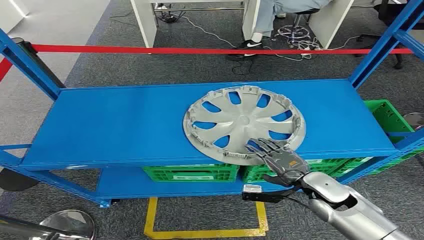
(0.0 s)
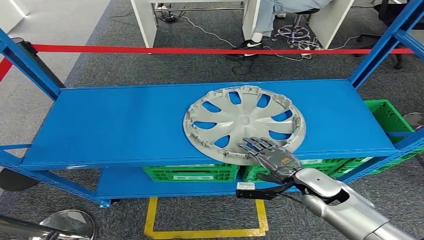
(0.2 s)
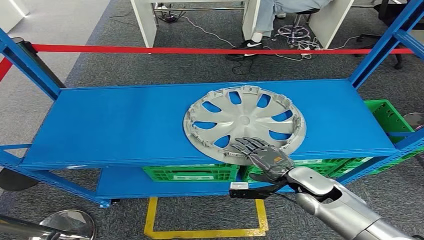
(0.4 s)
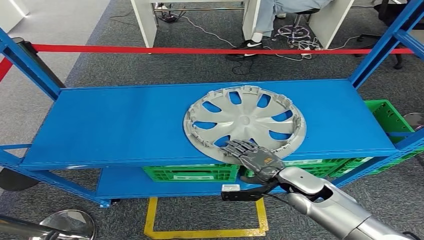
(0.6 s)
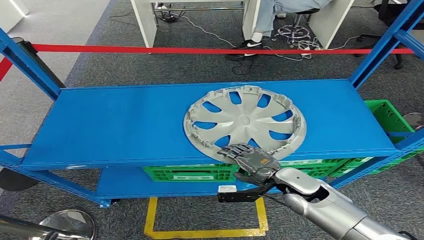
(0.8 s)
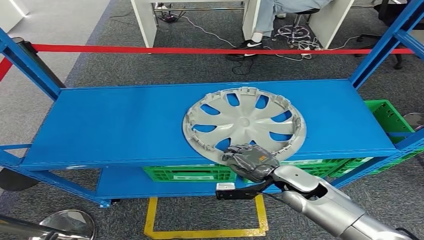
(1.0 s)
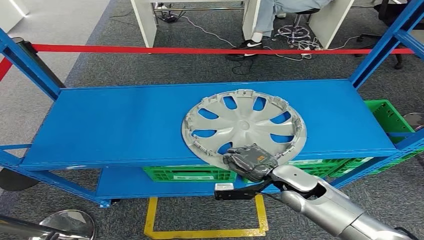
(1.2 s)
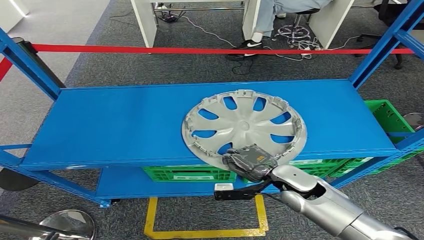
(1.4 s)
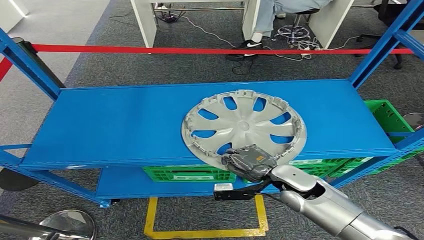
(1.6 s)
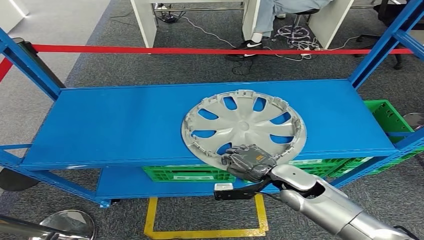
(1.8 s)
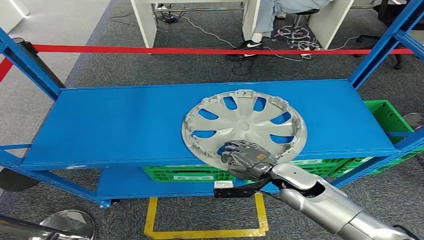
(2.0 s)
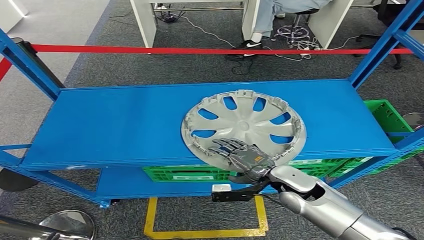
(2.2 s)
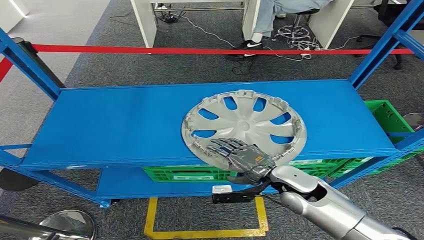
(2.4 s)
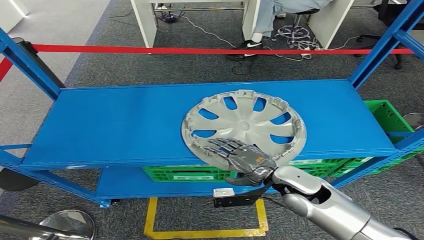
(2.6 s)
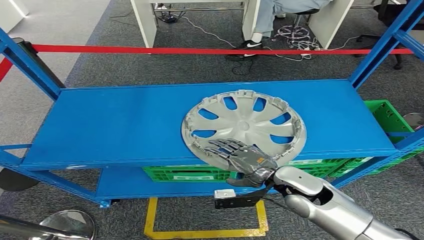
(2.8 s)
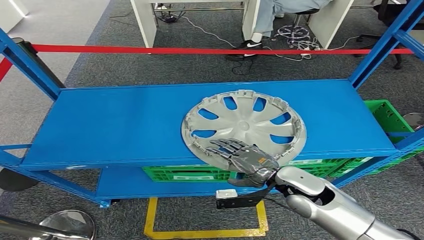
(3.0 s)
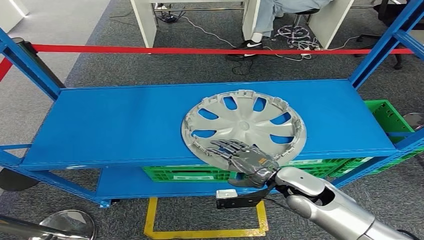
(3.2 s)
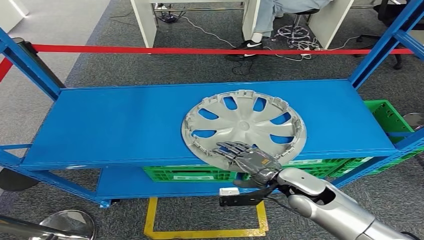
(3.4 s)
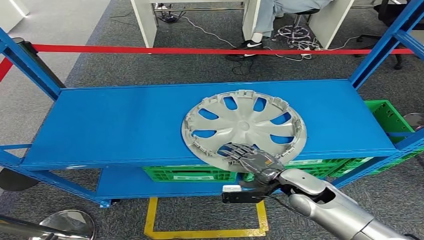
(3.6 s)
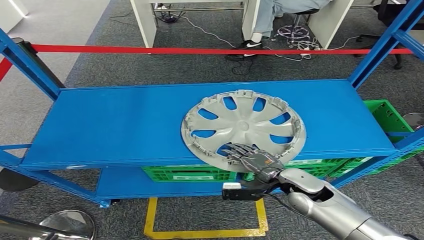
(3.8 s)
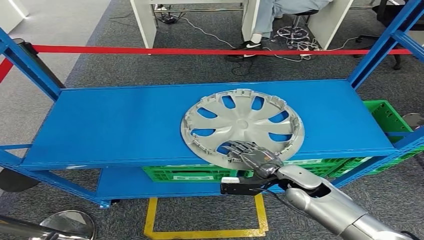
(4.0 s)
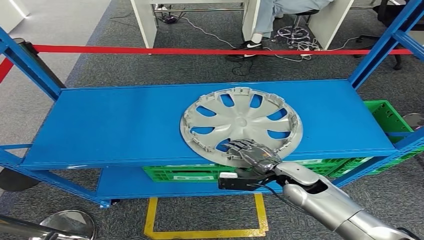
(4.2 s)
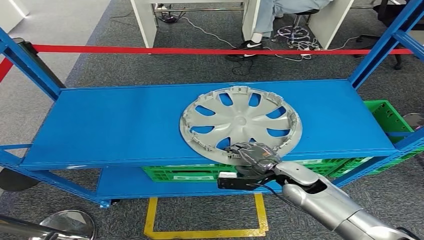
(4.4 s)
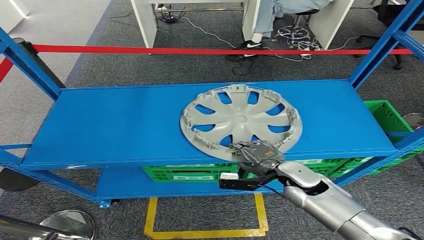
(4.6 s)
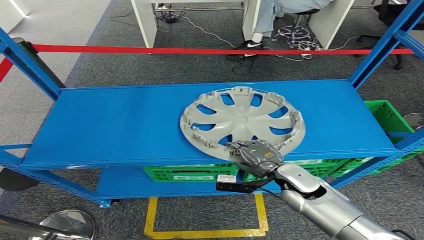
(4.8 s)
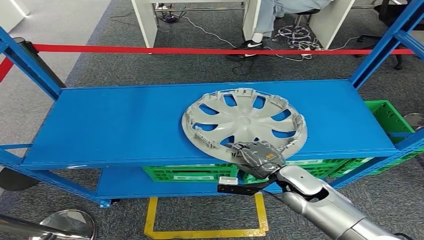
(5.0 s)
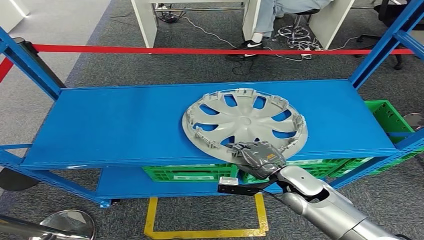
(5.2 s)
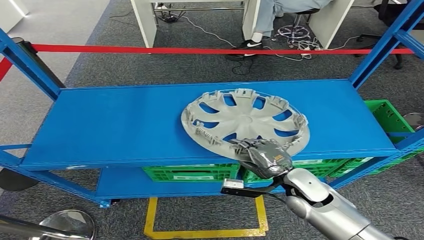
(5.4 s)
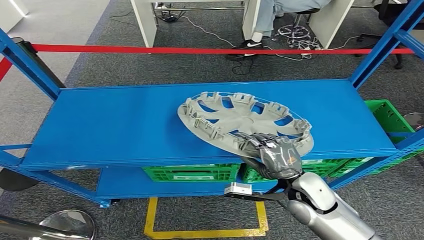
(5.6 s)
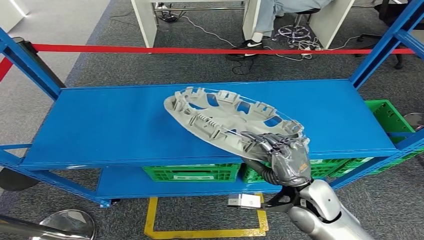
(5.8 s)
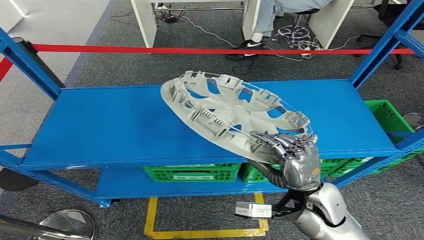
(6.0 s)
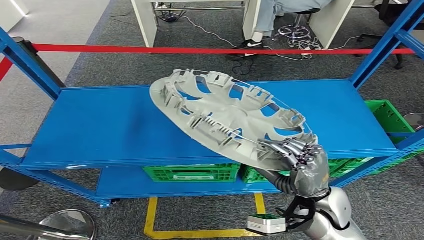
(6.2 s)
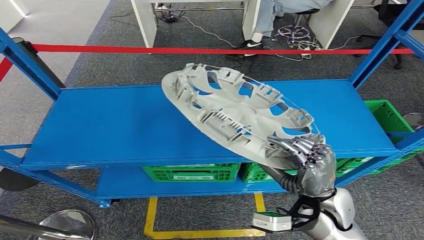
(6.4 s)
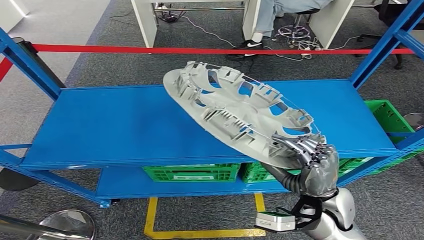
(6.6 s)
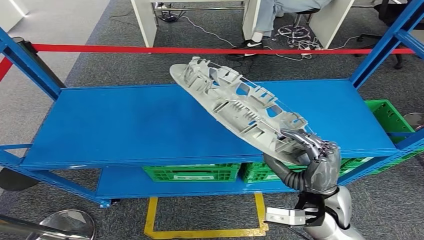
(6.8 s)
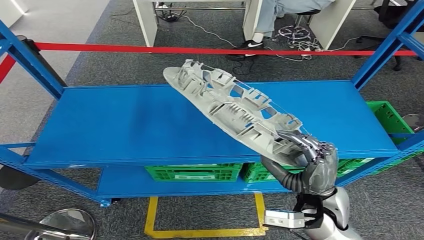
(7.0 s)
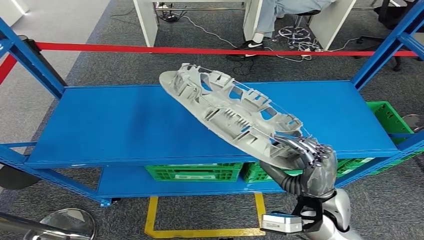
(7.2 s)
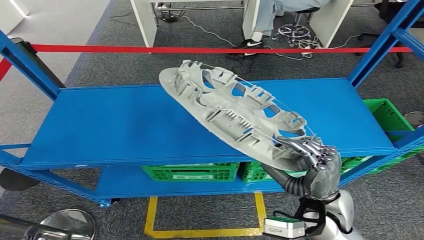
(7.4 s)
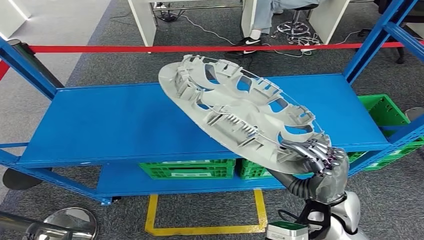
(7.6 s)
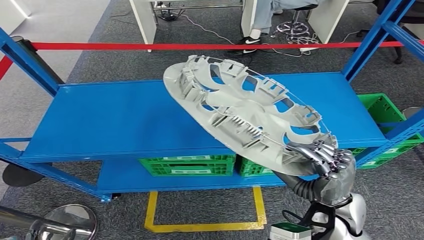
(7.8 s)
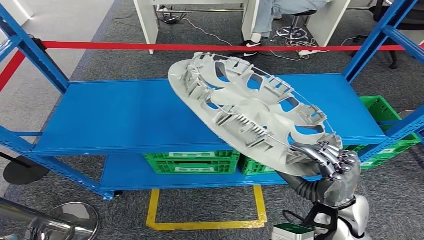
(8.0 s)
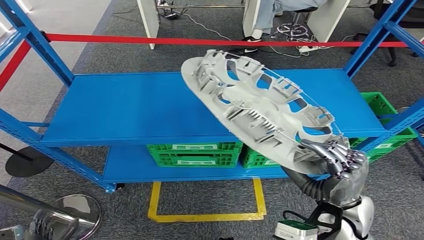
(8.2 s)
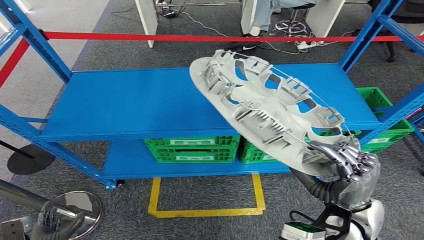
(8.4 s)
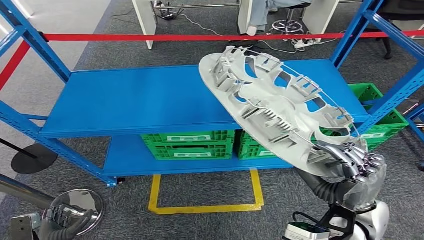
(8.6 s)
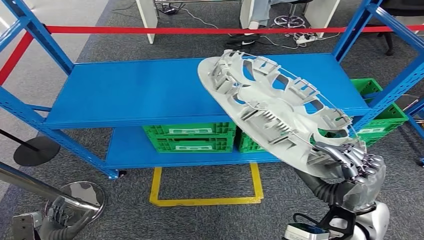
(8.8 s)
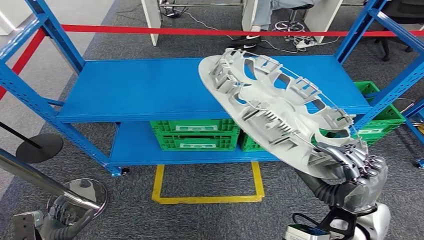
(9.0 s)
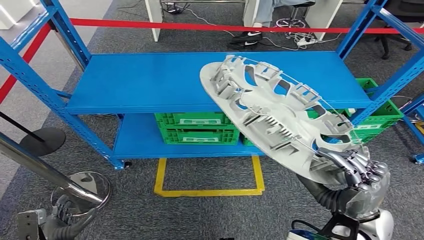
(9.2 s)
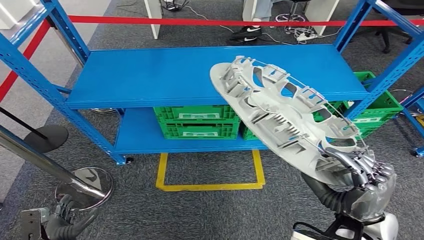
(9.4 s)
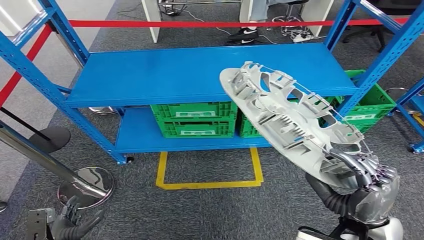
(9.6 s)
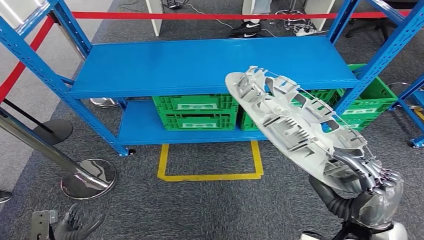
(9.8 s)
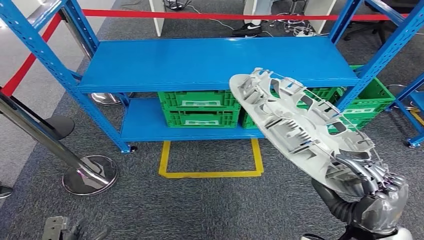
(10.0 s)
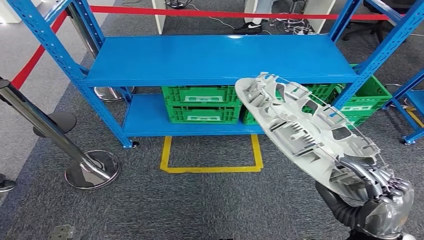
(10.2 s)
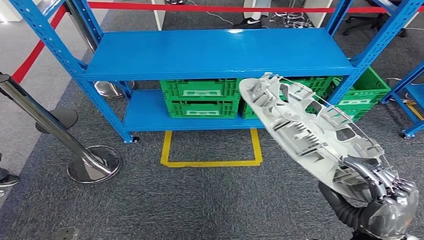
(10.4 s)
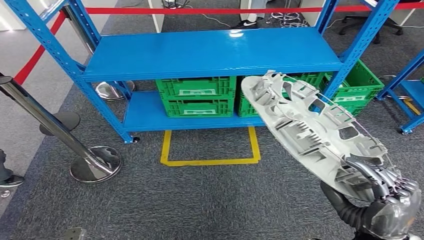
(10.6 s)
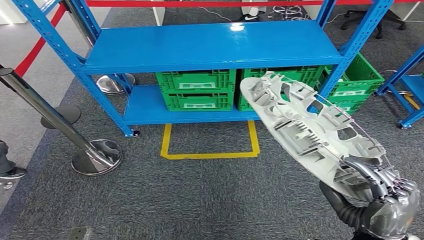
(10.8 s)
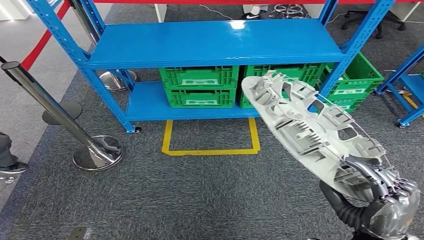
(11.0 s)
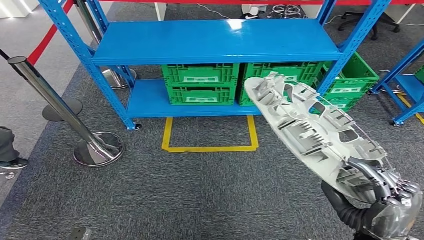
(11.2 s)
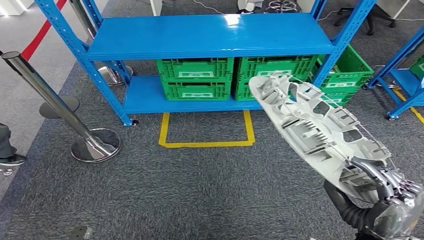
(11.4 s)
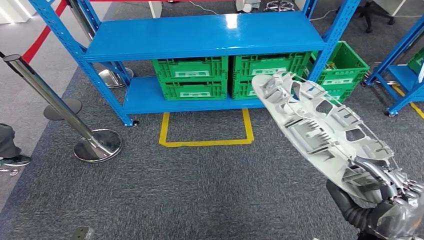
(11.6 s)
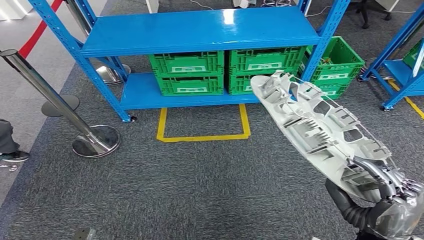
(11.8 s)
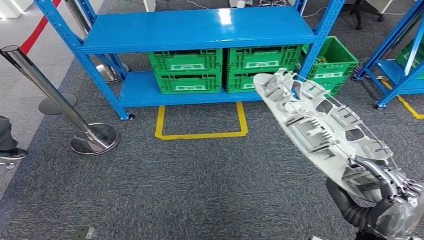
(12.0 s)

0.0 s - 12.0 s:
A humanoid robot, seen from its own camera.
Step, 0.0 s - 6.4 s: Pick up the small component from the shelf.
1.6 s - 3.0 s: The hands move only a little.
3.0 s - 4.4 s: The right hand moves approximately 5 cm.
4.4 s - 6.0 s: The right hand is displaced upward and backward by roughly 10 cm.

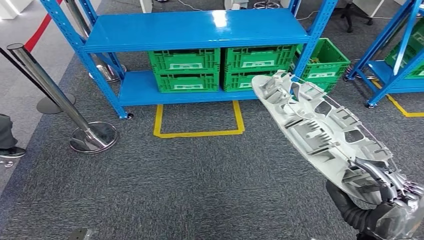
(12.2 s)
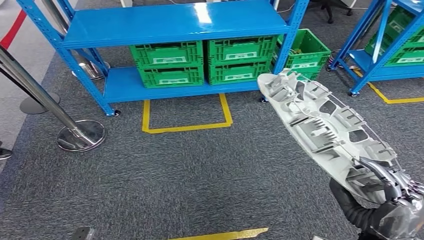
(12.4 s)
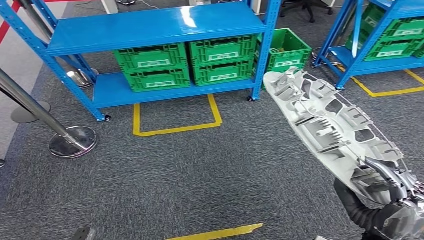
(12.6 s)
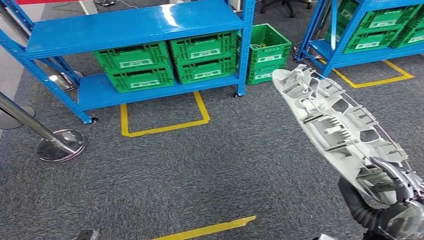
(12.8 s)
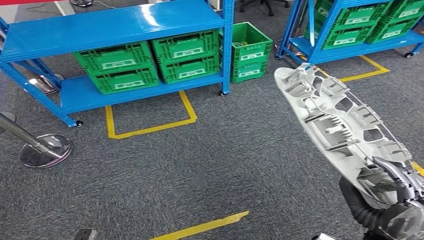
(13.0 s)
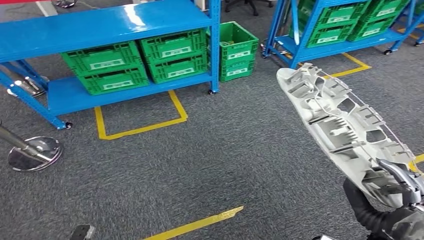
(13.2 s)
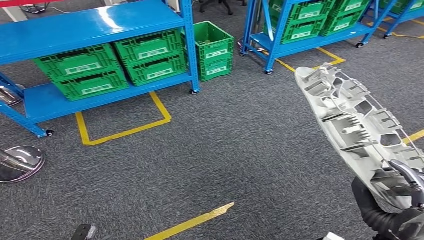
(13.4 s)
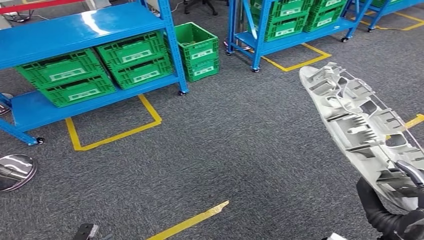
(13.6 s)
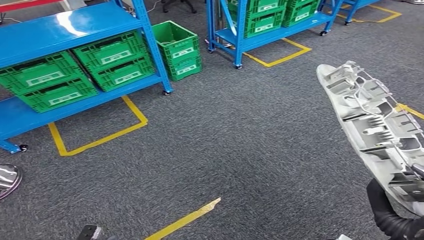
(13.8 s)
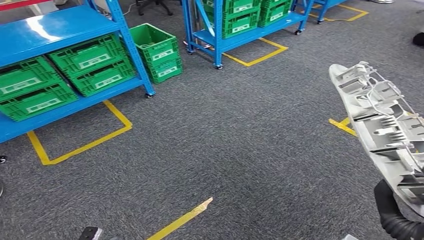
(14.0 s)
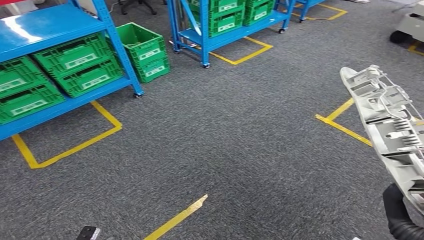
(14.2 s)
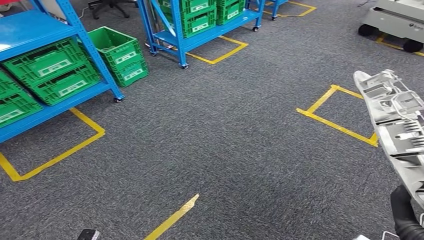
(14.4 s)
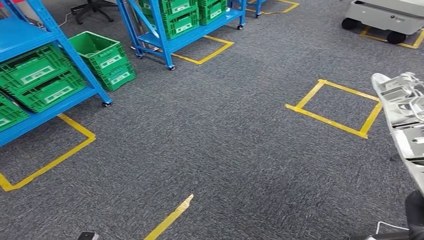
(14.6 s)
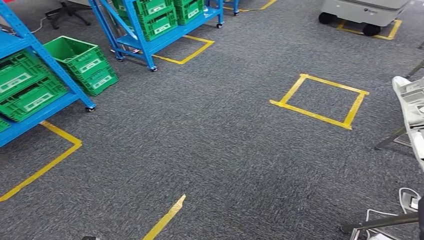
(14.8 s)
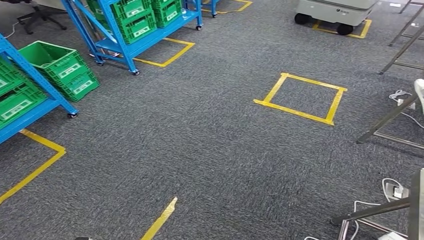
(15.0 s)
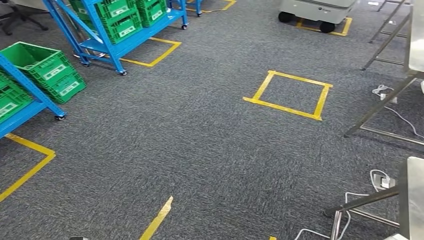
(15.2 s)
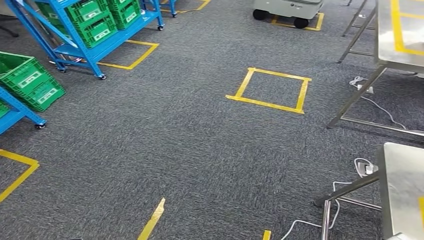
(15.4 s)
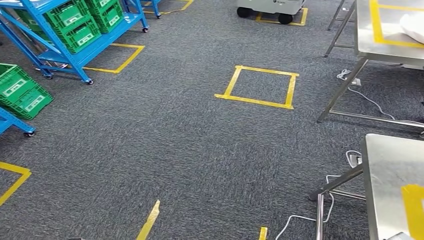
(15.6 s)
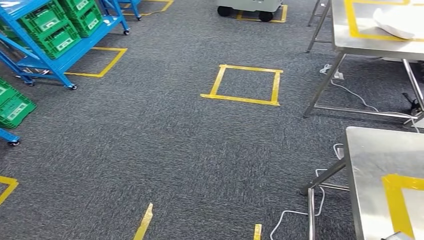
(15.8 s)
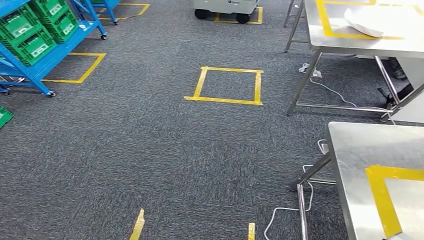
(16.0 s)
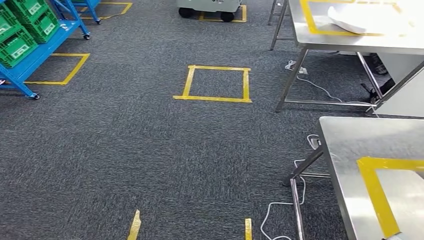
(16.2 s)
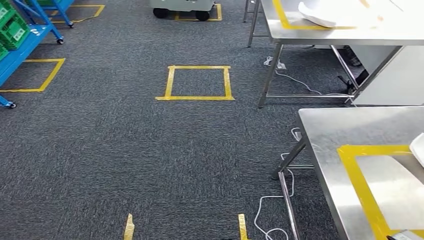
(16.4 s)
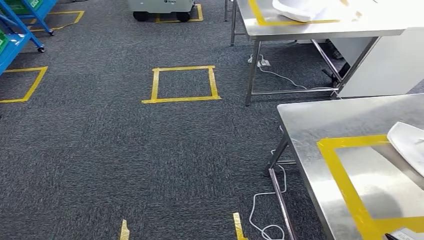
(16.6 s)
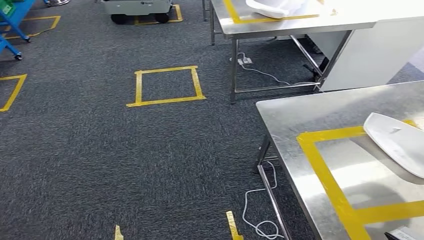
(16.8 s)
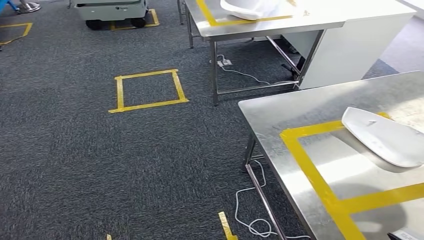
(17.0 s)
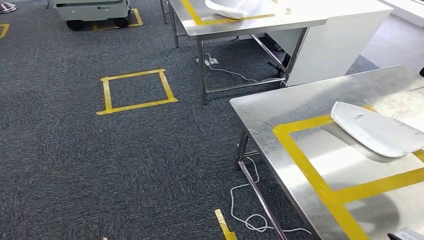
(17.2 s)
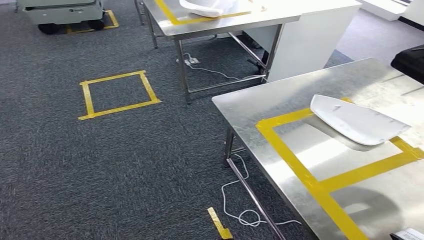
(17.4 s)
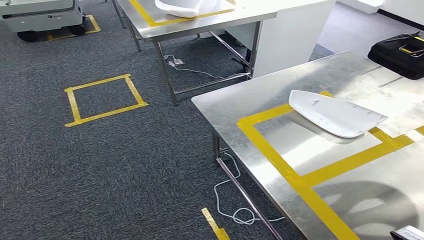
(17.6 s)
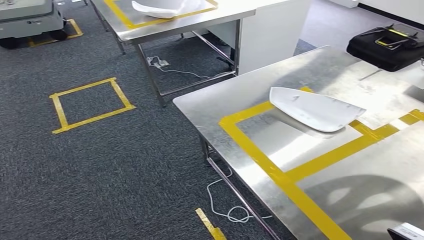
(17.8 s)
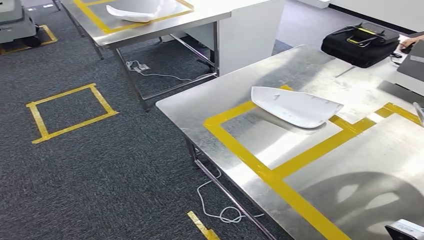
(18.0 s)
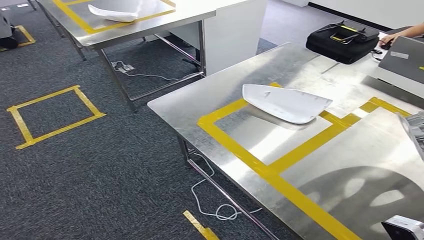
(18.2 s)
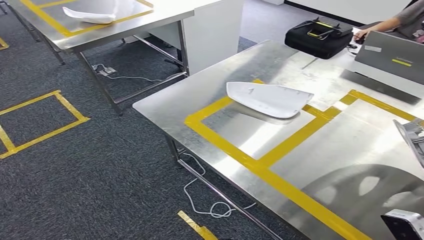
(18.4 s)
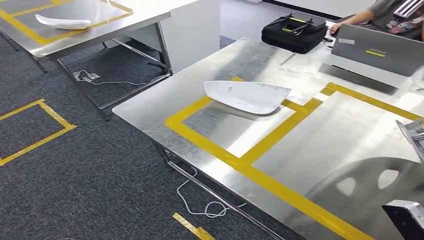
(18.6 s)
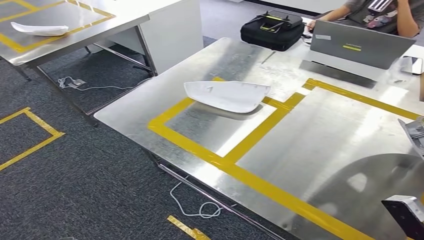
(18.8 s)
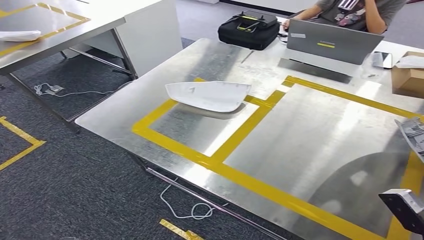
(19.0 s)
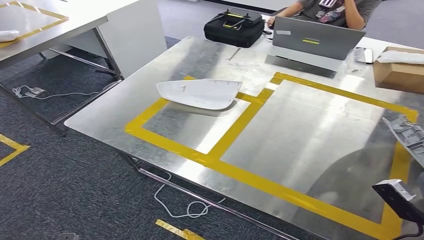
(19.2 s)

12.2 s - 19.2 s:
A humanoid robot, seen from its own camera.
Step, 12.2 s - 19.2 s: Bring the small component to the front of the workbench.
